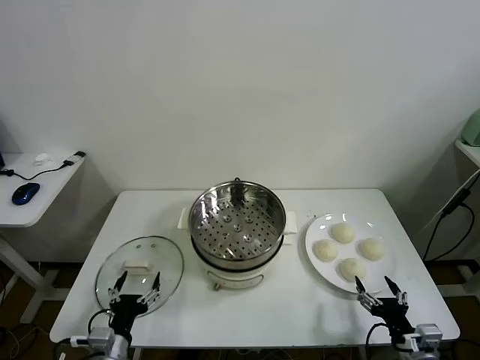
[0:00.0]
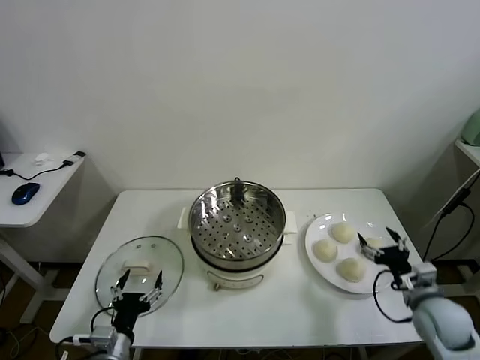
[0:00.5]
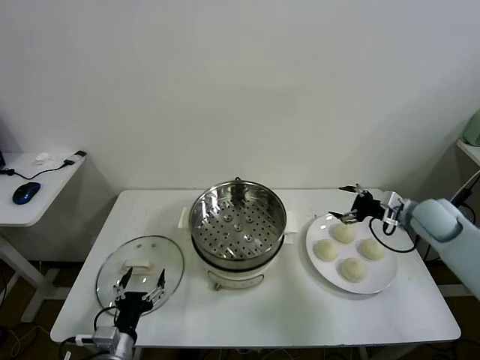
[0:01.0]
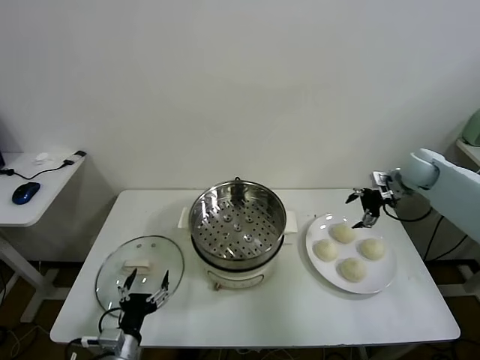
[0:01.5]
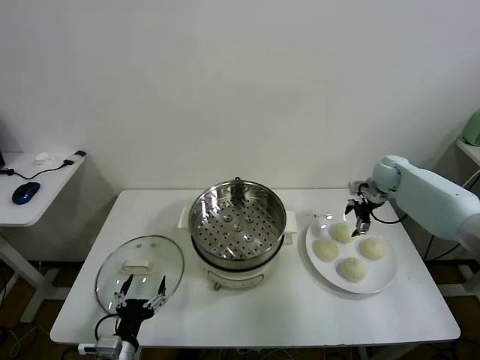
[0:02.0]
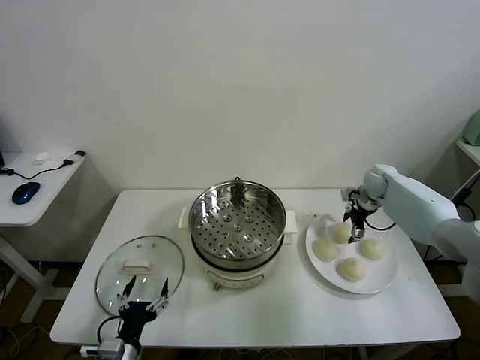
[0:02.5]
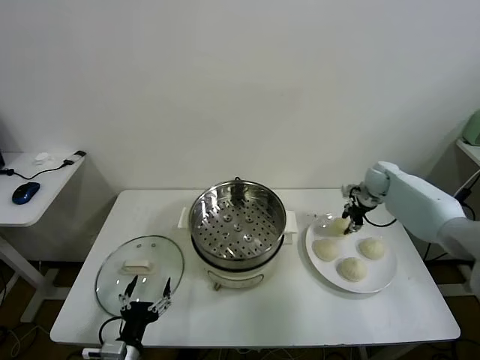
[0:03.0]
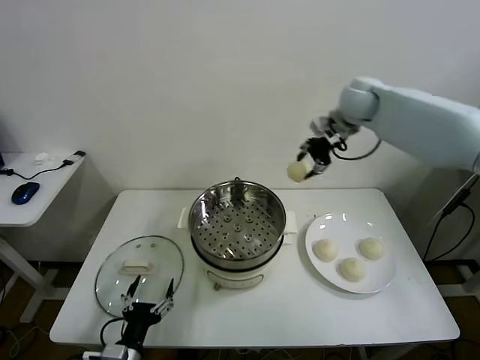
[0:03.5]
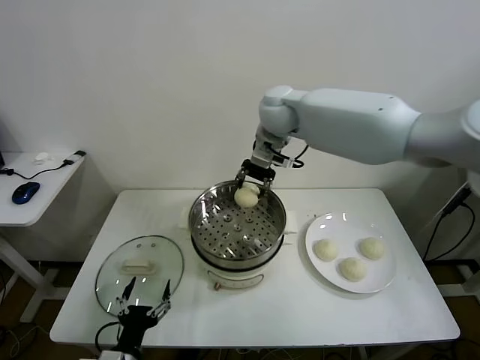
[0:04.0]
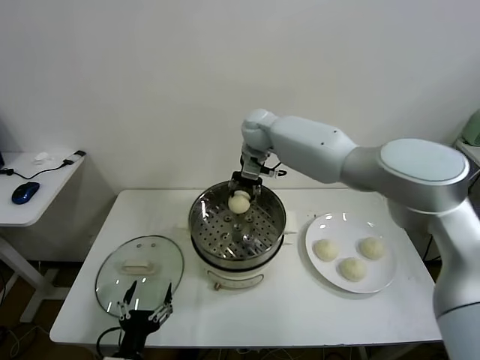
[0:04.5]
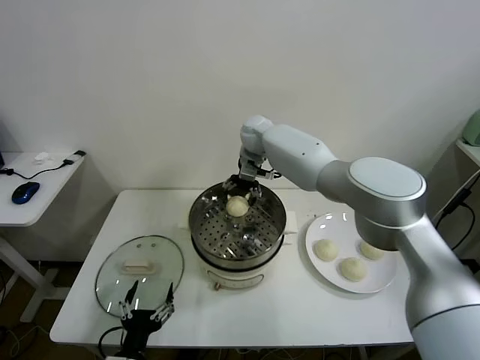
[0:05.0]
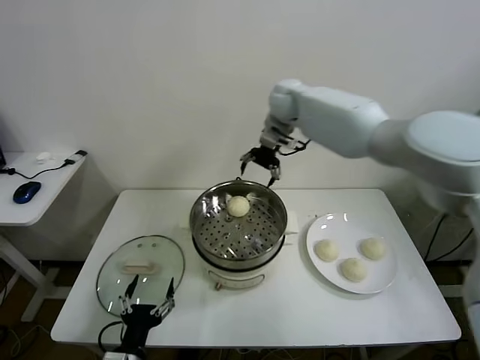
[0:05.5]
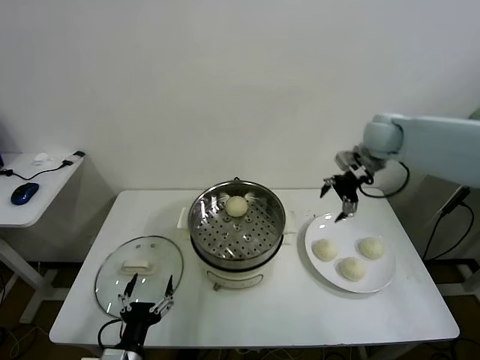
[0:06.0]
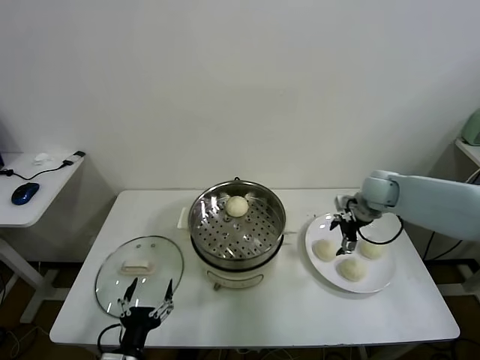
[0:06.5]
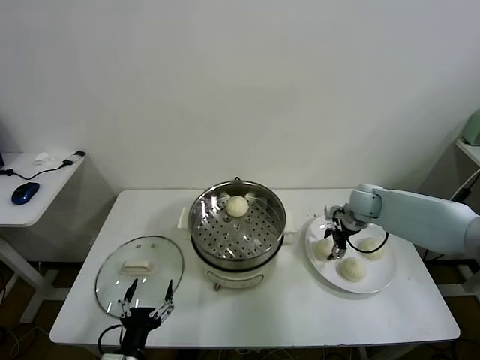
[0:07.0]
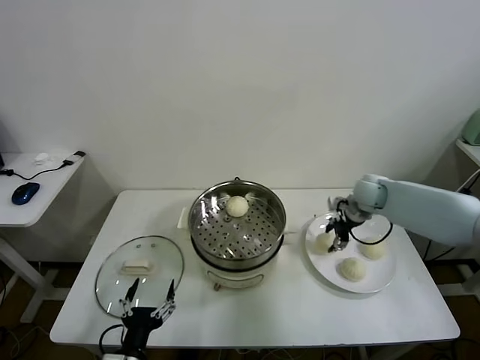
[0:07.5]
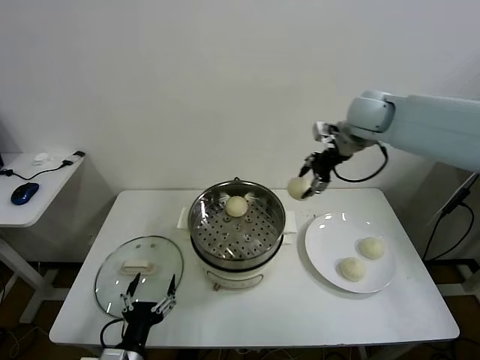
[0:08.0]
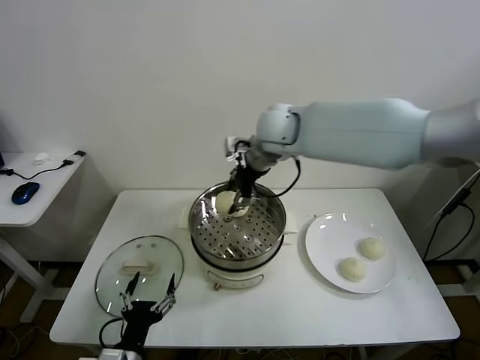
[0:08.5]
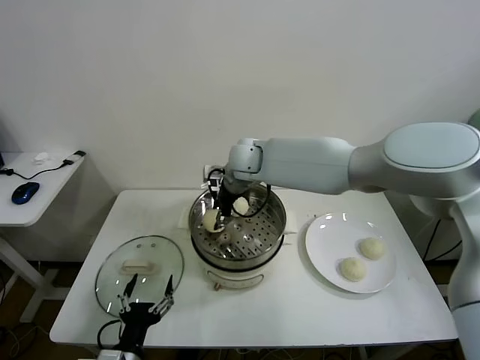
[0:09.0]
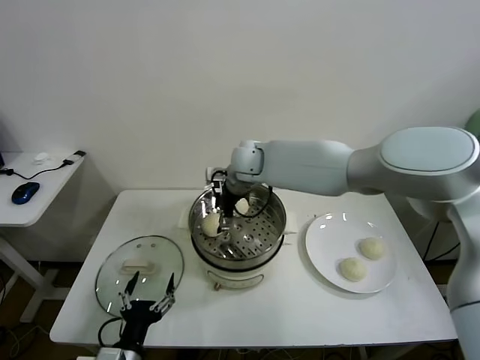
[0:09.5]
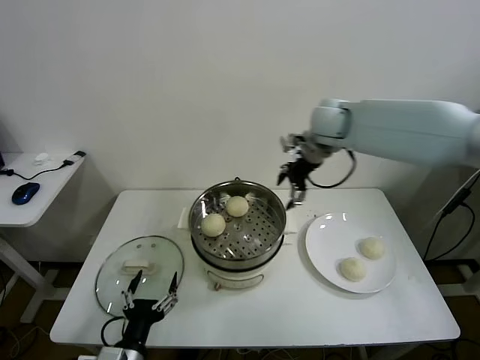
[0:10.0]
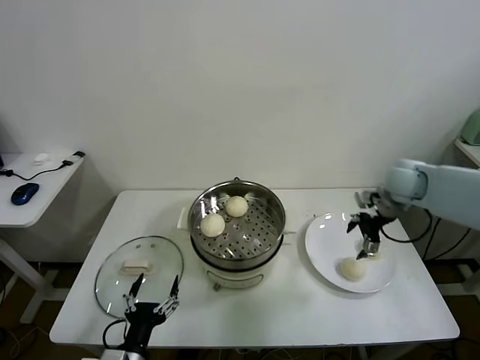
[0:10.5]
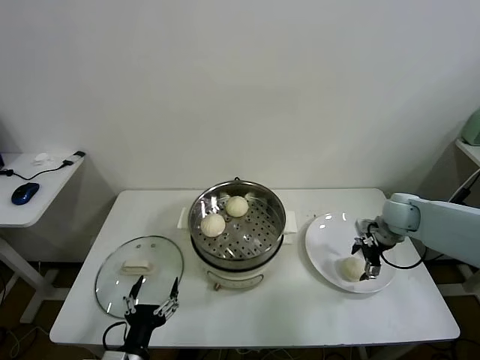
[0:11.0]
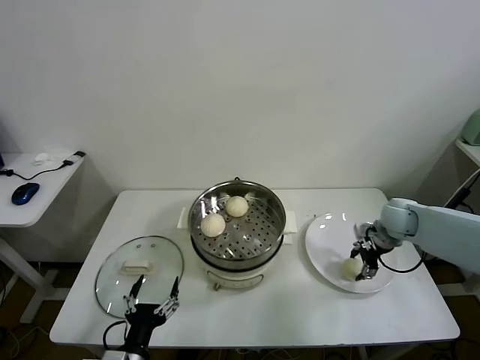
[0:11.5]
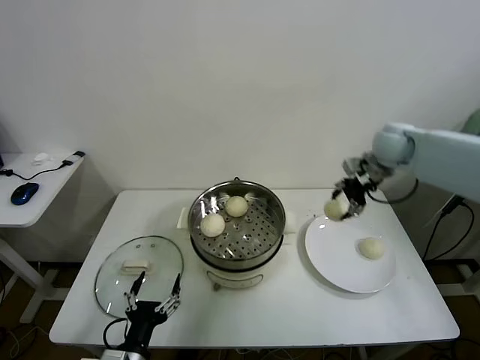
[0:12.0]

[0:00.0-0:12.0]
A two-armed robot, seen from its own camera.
Task of the whole recording: take steamed baozi put them in steamer.
Step, 0:00.0 to 0:02.5: Grasp the baozi in the plate with right gripper.
Step, 0:03.5 to 0:05.0: Place the baozi on the steamer with right gripper.
Step, 0:05.5 to 0:07.0: Grasp the baozi in the plate with right gripper.
Step, 0:07.5 to 0:09.5: Place the baozi on the steamer with right gripper.
Step, 0:10.0 to 0:11.5: Grasp the baozi in the plate with right gripper.
0:02.0 to 0:04.0: The right gripper is displaced to the left and upward by approximately 40 cm, and closes.
0:04.0 to 0:06.0: The right gripper is displaced to the right by approximately 25 cm, and opens.
0:06.0 to 0:08.0: The right gripper travels to the left and upward by some 15 cm, and closes its fingers.
0:08.0 to 0:10.0: The right gripper moves some 20 cm to the left and comes back, and opens up.
0:10.0 to 0:12.0: The right gripper is displaced to the right by about 10 cm, reaches approximately 20 cm downward, then returns, and closes its fingers.

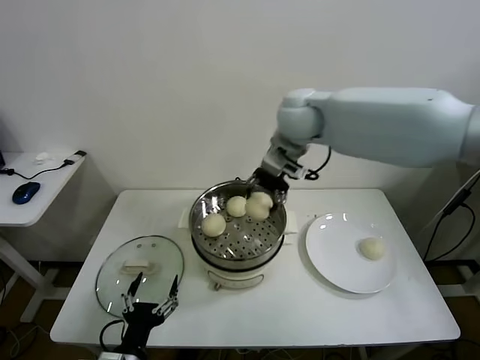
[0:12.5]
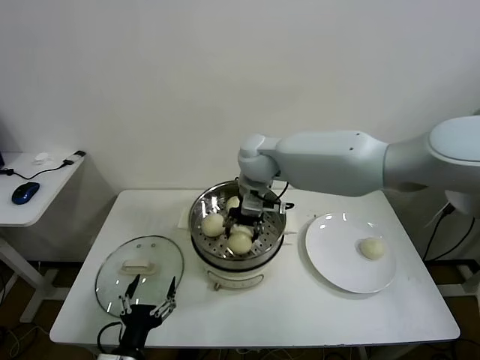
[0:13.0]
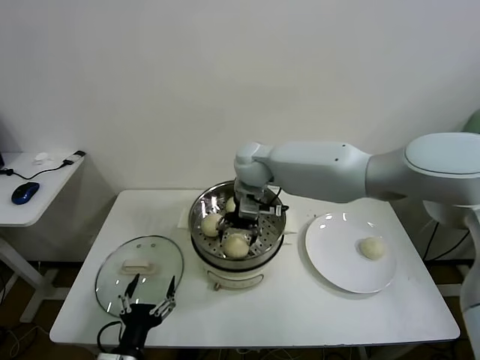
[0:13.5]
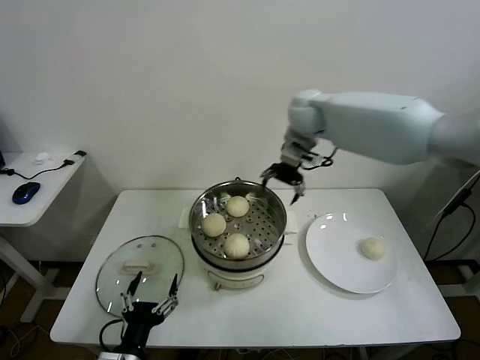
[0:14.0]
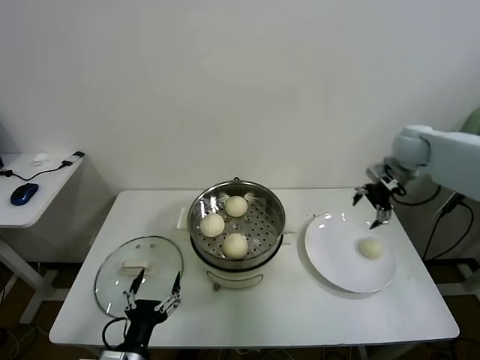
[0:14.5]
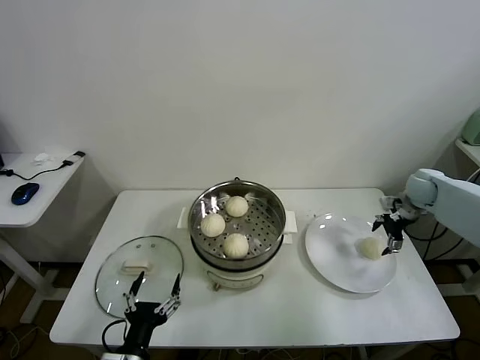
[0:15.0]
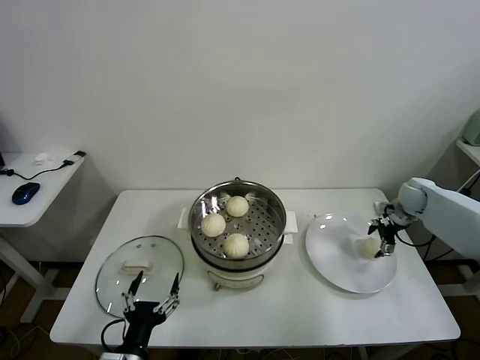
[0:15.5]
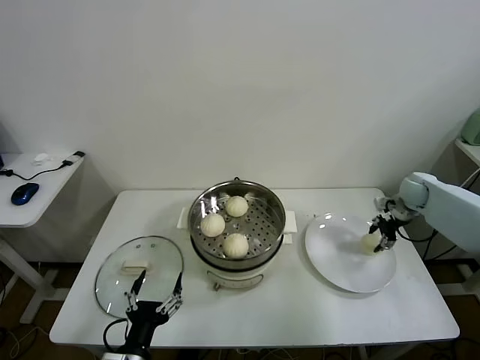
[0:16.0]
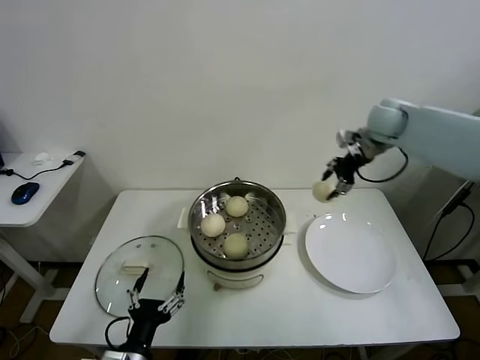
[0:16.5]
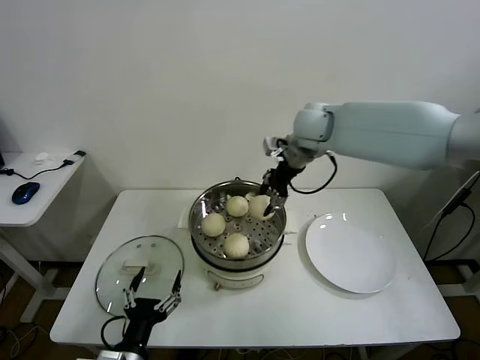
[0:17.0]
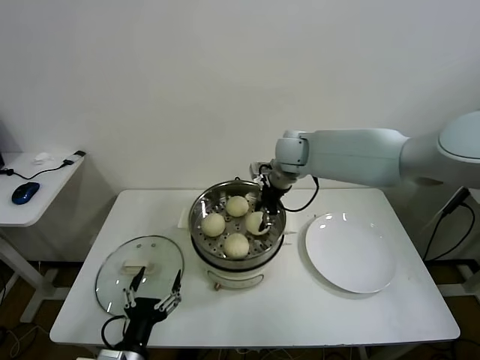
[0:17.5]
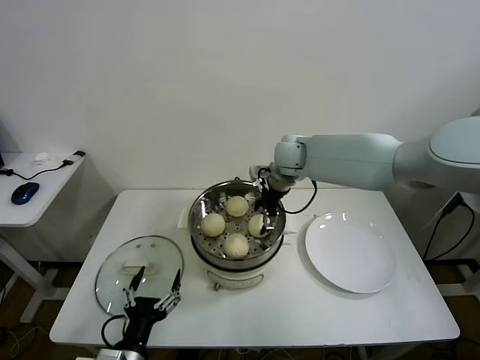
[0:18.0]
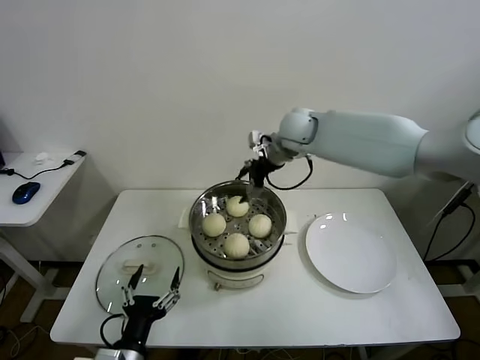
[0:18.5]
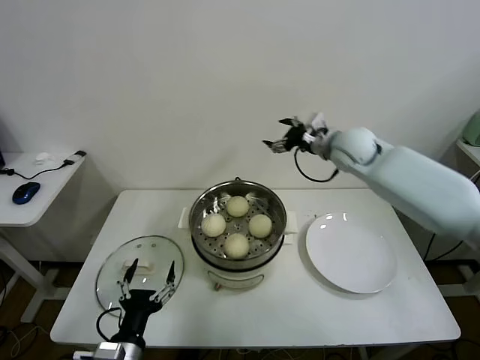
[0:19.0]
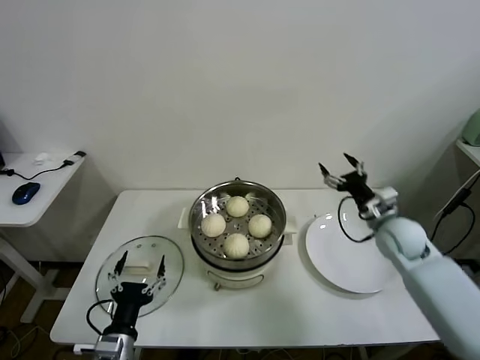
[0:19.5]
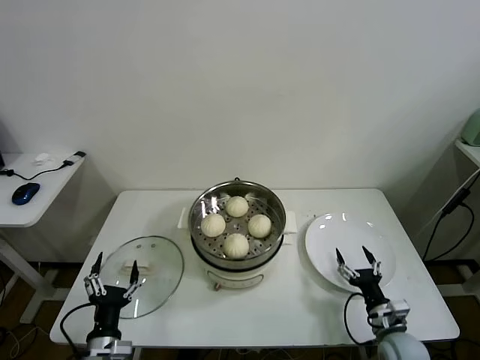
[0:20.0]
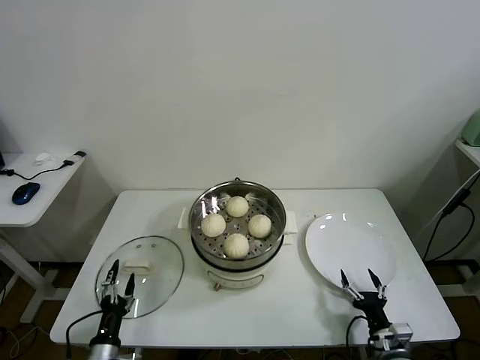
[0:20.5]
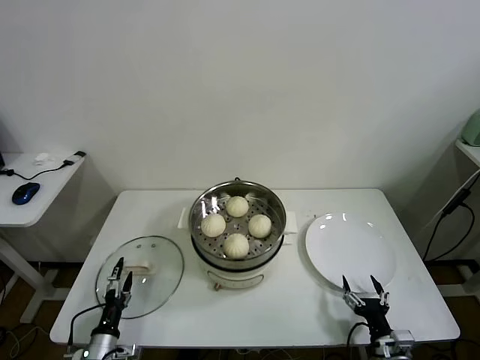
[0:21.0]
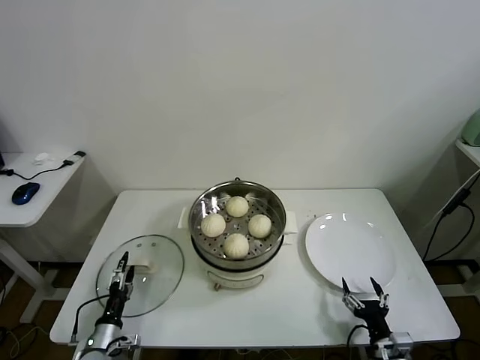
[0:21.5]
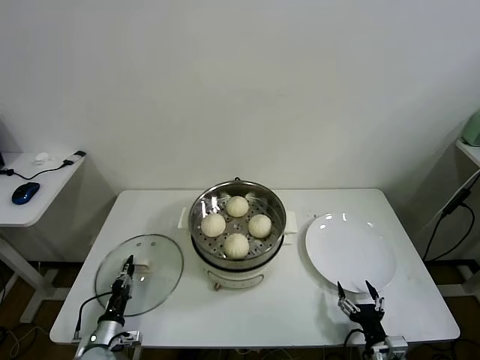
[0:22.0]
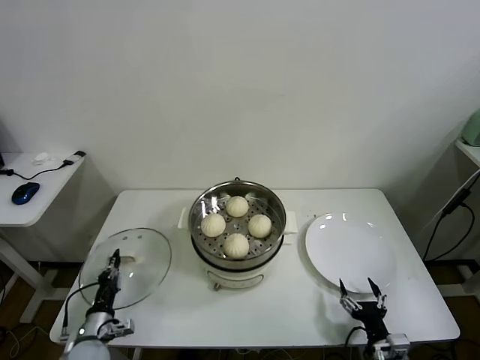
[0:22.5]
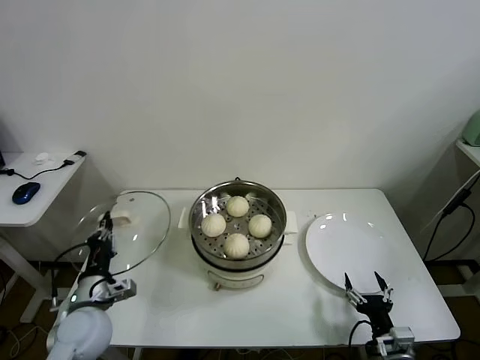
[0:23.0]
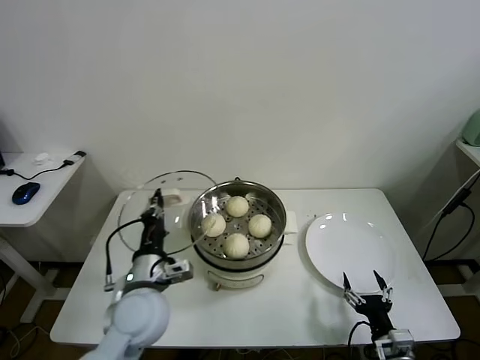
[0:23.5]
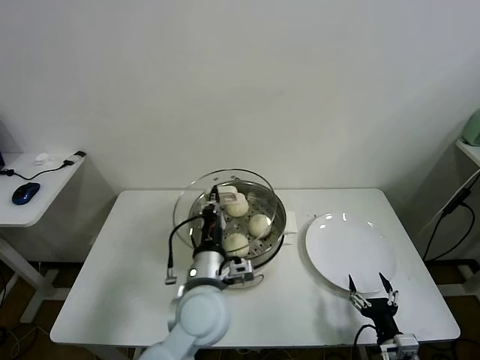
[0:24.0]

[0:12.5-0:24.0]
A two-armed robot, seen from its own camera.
Task of the whole recording: take steamed baozi put them in steamer.
Step, 0:14.0 to 0:15.5: Grasp the baozi in the plate with right gripper.
Step, 0:16.0 to 0:18.0: Place the baozi on the steamer with right gripper.
Step, 0:18.5 to 0:22.0: Grasp the pot lid with left gripper.
0:12.5 to 0:14.5: The right gripper heads to the right, covering some 30 cm, and opens its fingers.
0:14.5 to 0:16.5: The right gripper goes some 10 cm to the left, goes downward and returns, approximately 15 cm each way, and closes its fingers.
0:16.5 to 0:18.5: The right gripper is displaced to the left by roughly 20 cm, and opens up.
0:18.5 to 0:20.0: The left gripper shifts approximately 10 cm downward and to the left, while the right gripper goes approximately 60 cm downward, backward and to the right.
0:20.0 to 0:22.0: The left gripper moves downward, to the left and forward, some 15 cm, and closes up. The right gripper moves backward, roughly 10 cm.
0:22.0 to 0:24.0: The left gripper moves to the right and upward, roughly 40 cm.

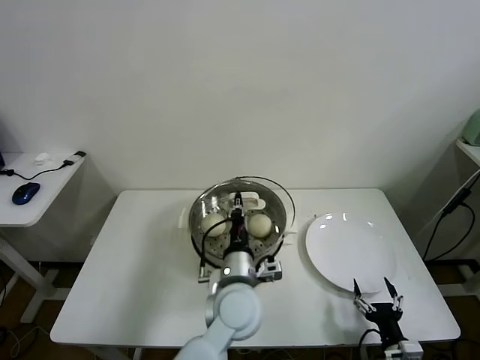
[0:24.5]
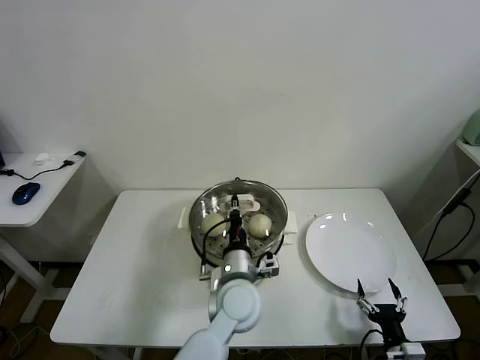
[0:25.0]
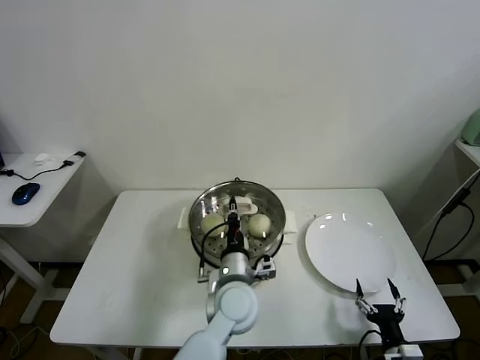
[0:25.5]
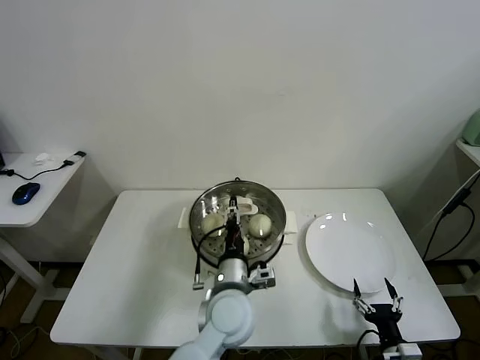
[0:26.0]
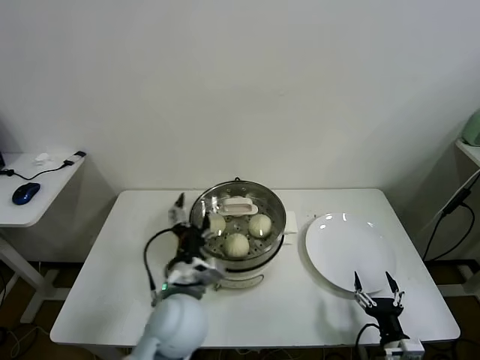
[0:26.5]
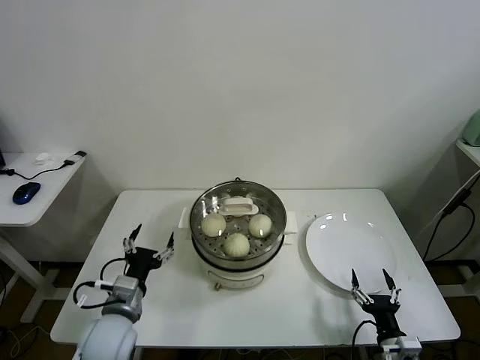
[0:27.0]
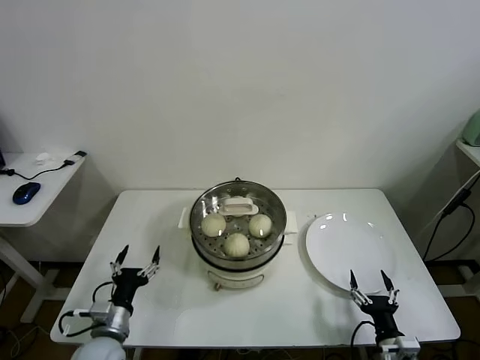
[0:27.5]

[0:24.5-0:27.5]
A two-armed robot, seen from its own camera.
Task of the whole recording: take steamed baozi put them in steamer.
0:24.5 to 0:26.0: The left gripper opens up.
0:26.0 to 0:27.5: The left gripper is displaced to the left by about 30 cm, and opens.
